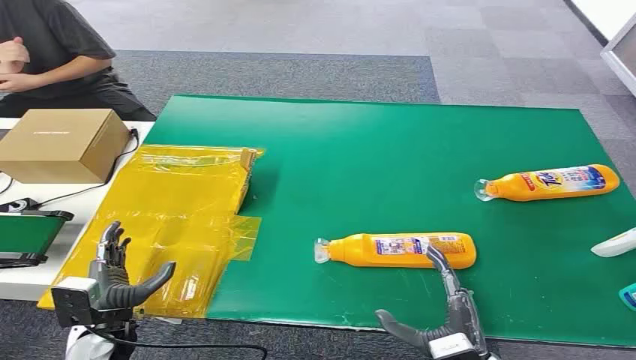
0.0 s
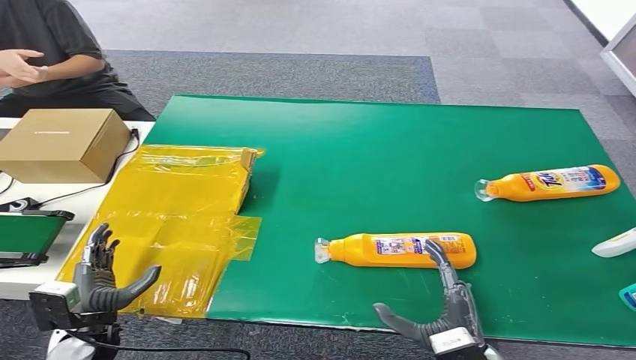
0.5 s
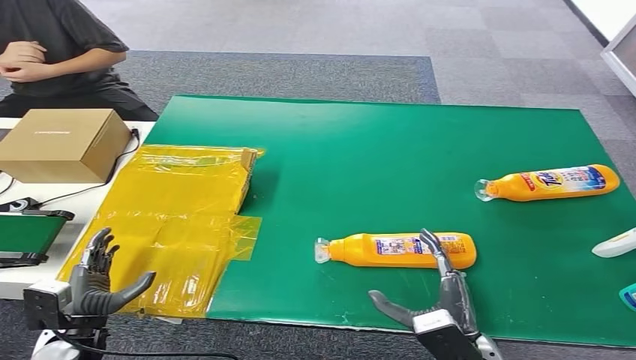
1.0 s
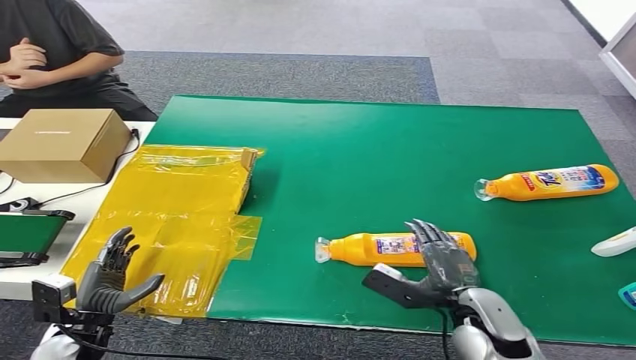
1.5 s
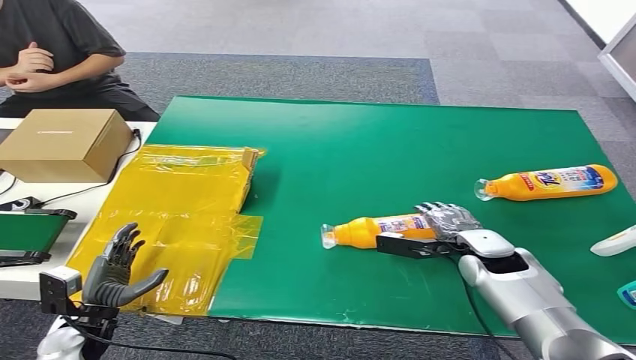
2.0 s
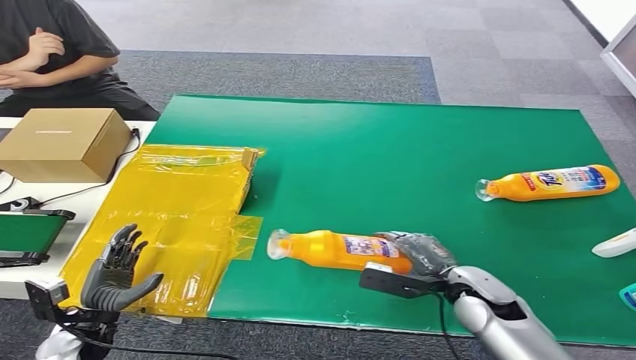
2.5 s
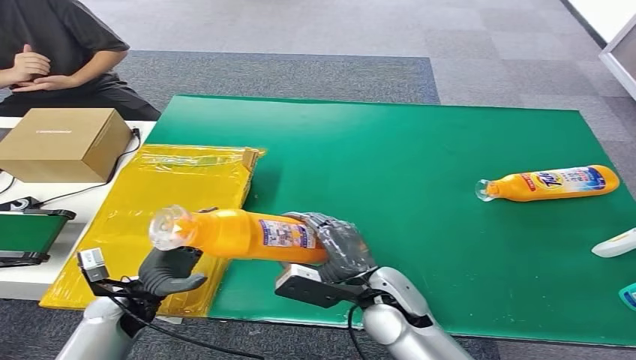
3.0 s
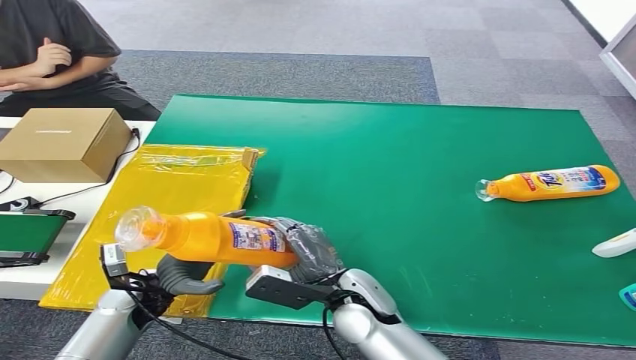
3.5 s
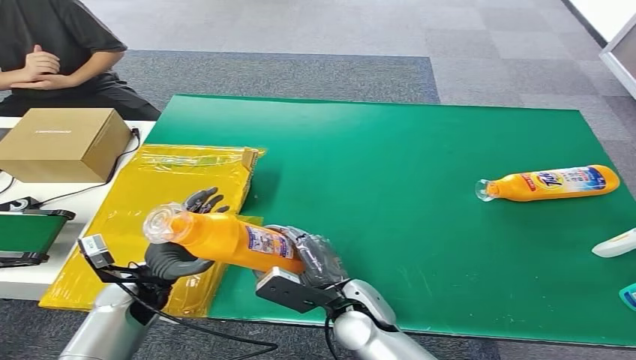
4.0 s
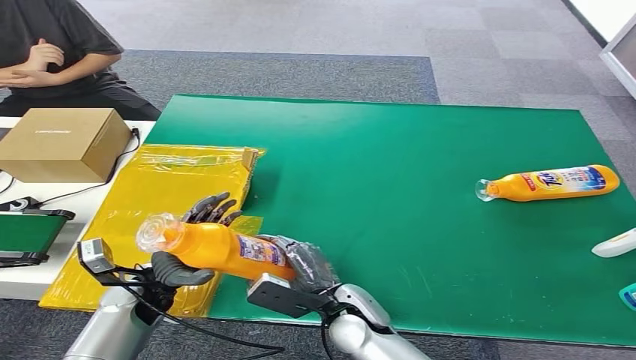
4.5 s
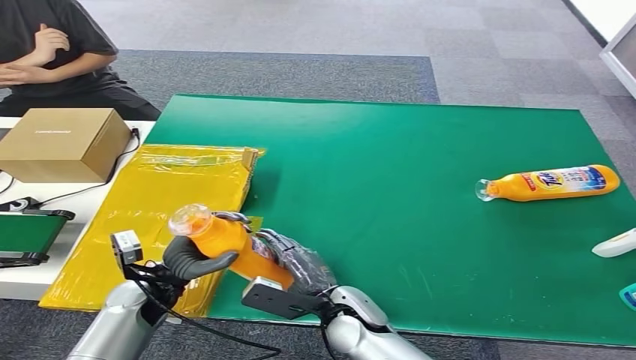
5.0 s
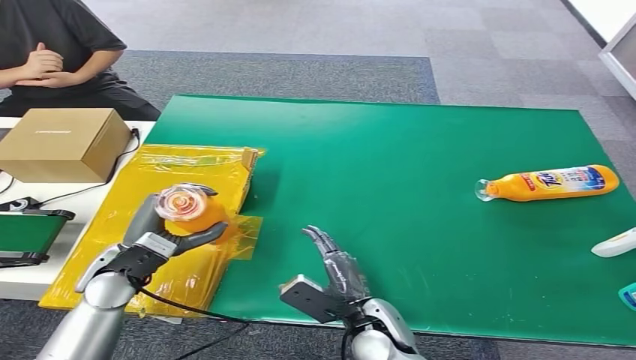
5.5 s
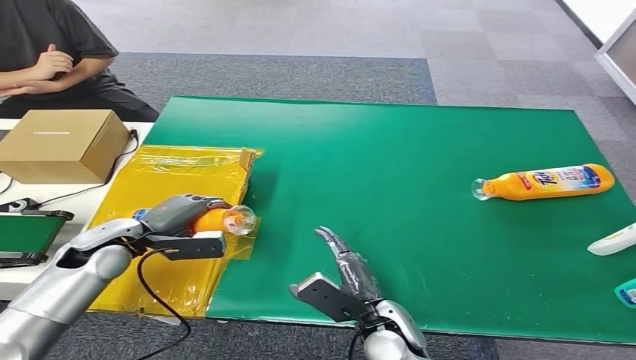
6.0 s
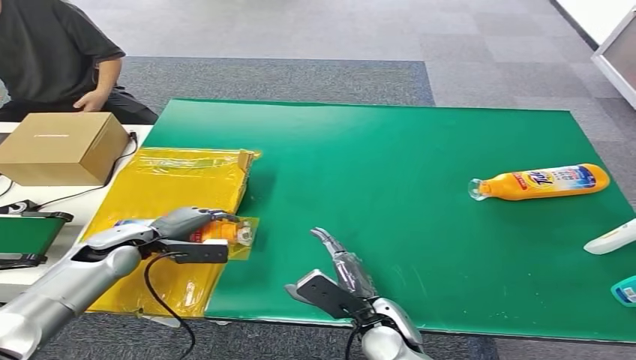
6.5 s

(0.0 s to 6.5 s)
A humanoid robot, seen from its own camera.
Step, 0.0 s - 2.5 s: Pick up the bottle from the table.
Step, 3.0 s - 6.5 s: Turn the bottle to the front side.
